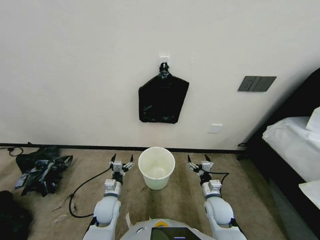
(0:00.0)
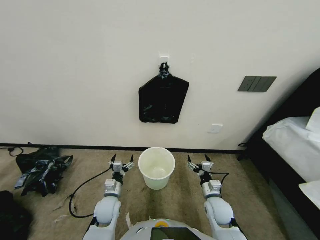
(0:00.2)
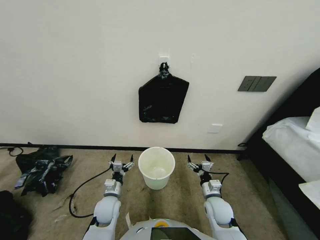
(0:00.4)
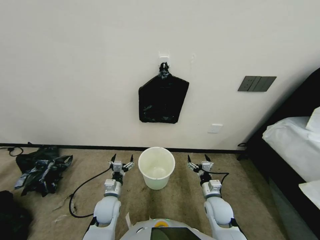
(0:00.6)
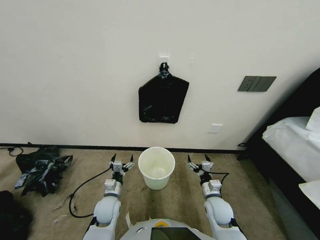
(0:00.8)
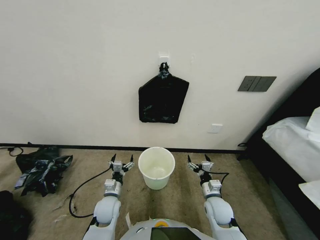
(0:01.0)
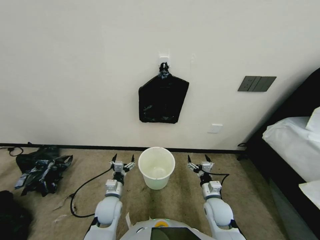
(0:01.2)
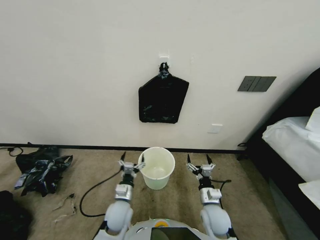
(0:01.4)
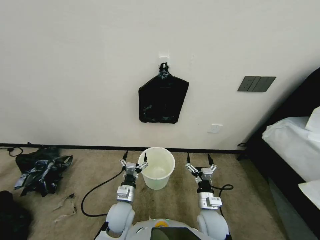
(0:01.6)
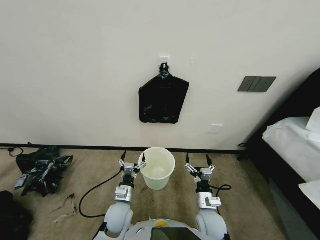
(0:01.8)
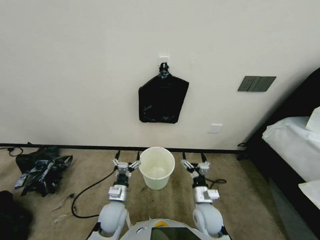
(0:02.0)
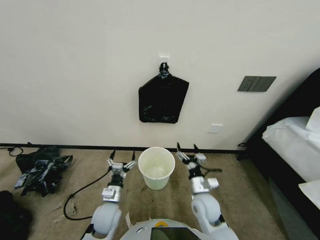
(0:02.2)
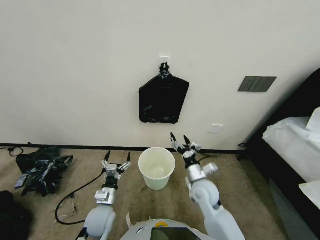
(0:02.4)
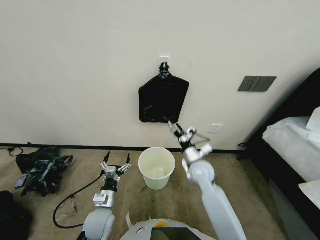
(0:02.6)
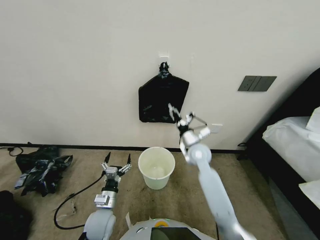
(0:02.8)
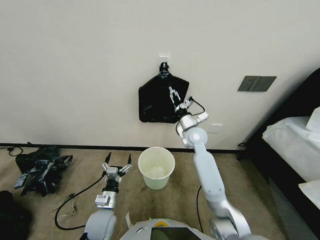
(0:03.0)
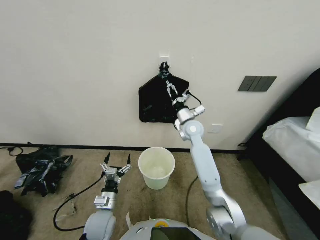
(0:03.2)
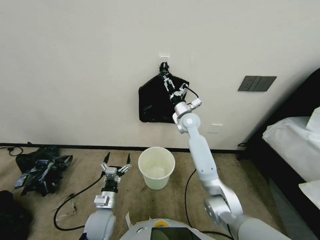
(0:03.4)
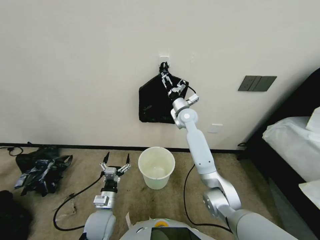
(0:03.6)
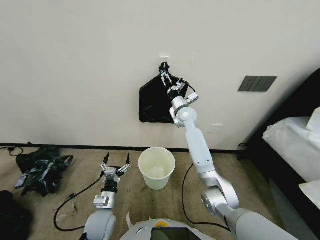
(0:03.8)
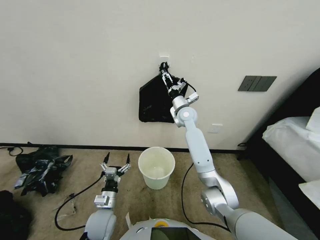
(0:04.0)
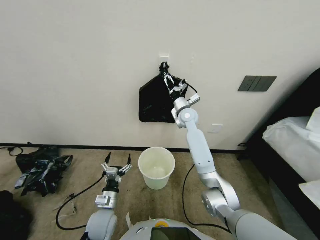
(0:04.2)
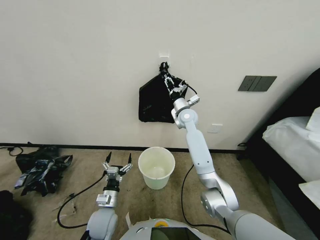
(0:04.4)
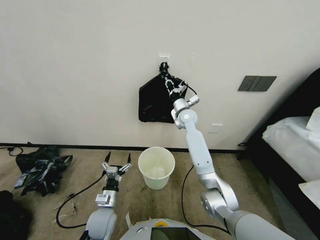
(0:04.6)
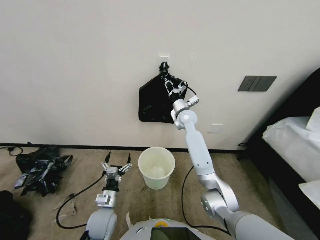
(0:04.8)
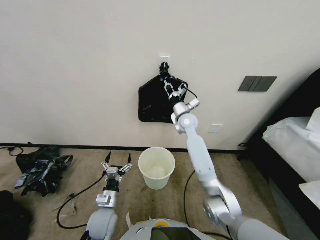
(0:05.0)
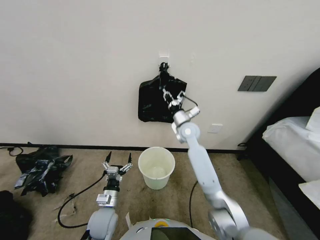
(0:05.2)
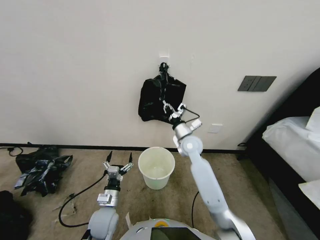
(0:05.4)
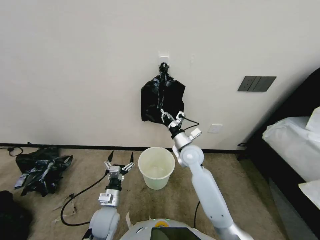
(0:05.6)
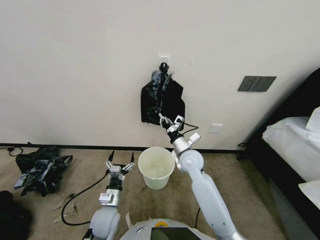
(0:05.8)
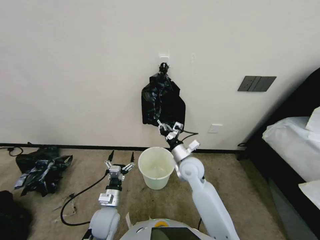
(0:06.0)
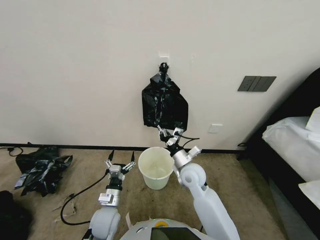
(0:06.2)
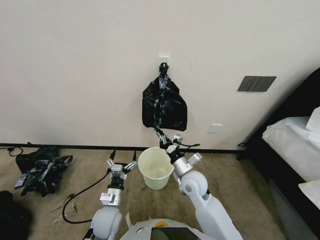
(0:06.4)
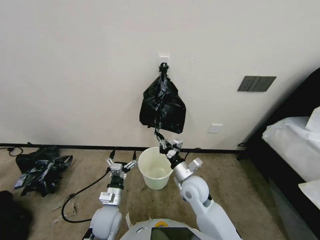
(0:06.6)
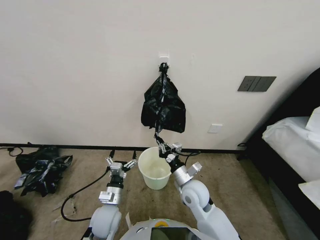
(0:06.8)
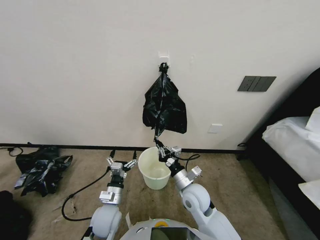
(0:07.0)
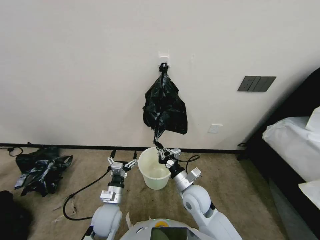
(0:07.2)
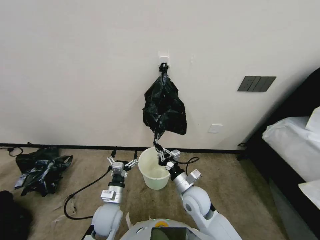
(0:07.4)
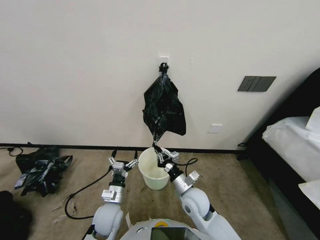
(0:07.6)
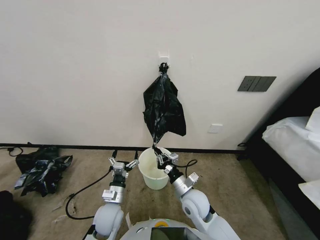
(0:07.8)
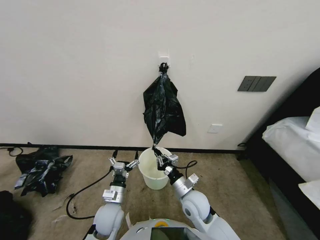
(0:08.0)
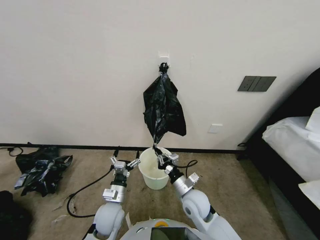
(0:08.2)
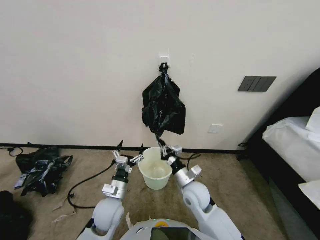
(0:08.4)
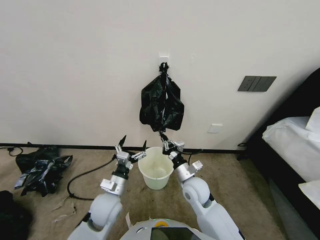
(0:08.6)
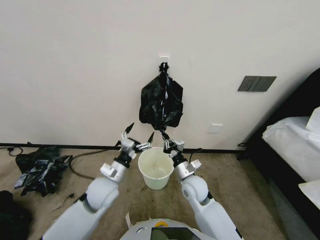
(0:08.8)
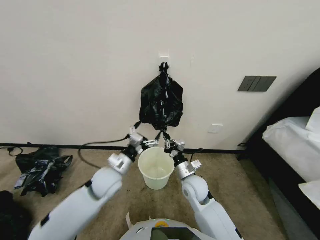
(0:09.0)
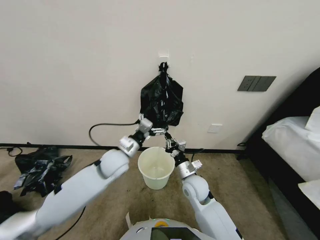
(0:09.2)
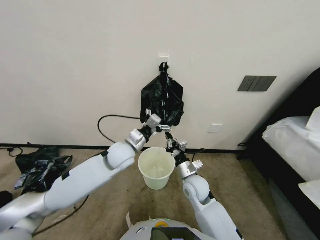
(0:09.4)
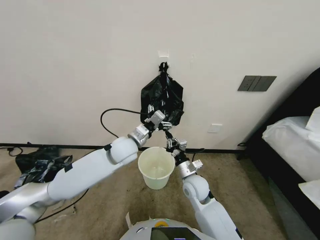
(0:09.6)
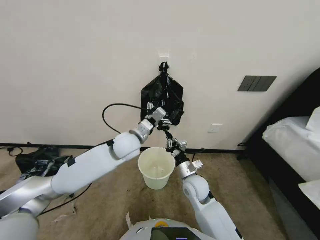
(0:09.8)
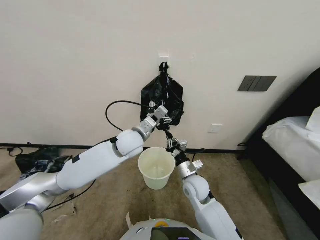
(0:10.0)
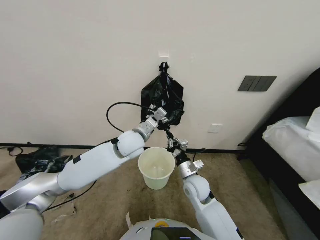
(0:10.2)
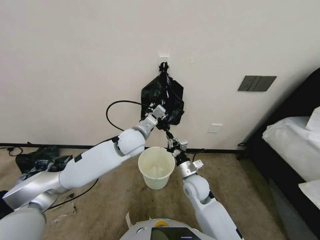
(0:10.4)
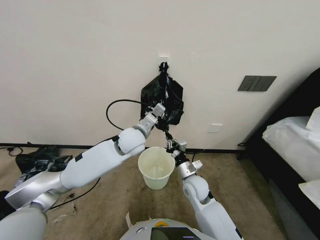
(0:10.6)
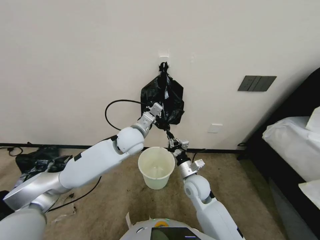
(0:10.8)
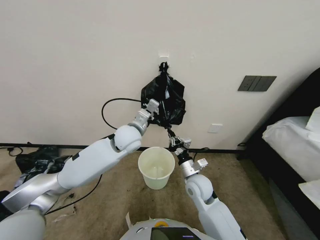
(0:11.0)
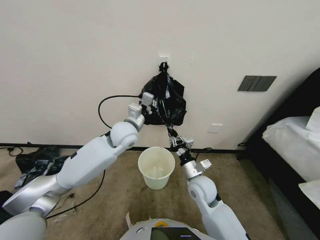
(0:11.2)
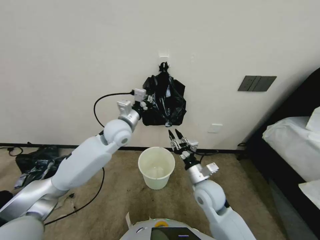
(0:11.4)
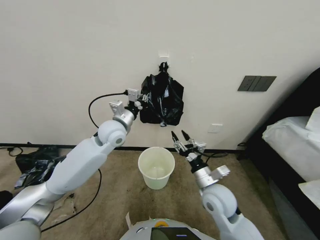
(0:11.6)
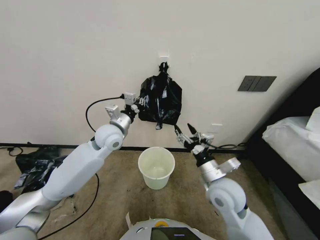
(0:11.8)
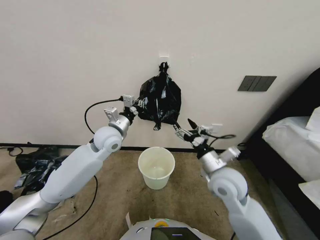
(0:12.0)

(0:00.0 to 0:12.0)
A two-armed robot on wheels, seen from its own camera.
Task of the whole recording: Place a trash bag onto the trash bin.
0:01.6 - 0:03.0: The right gripper goes about 30 cm forward and upward, while the left gripper goes approximately 5 cm to the left.
0:03.0 - 0:04.4: The right gripper goes approximately 10 cm forward and upward, and closes up.
0:04.4 - 0:06.0: The right gripper heads backward and downward, covering about 20 cm, and closes.
0:06.0 - 0:07.6: The right gripper heads backward and downward, covering approximately 15 cm.
0:07.6 - 0:09.0: The left gripper shifts some 15 cm upward and forward.
0:09.0 - 0:10.4: The left gripper moves forward, upward and to the right, about 15 cm, and closes up.
0:10.4 - 0:12.0: The left gripper is displaced to the left by roughly 10 cm, and closes its fingers. The right gripper goes some 10 cm upward and to the right, and opens its fingers.

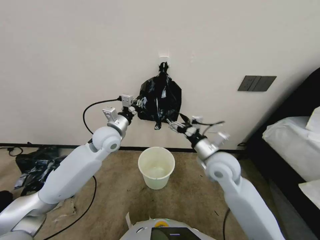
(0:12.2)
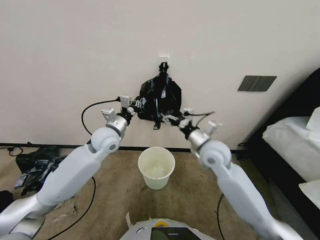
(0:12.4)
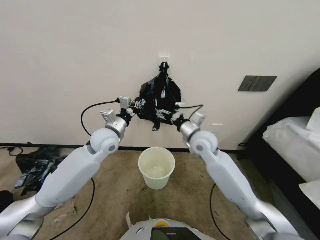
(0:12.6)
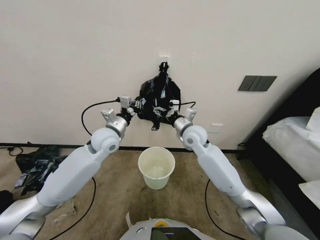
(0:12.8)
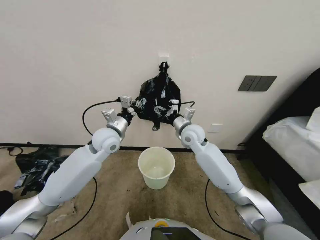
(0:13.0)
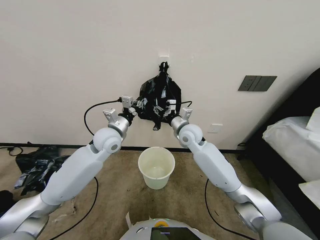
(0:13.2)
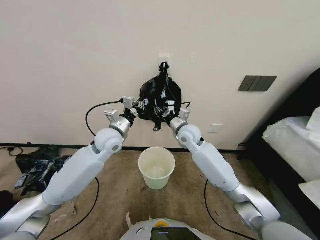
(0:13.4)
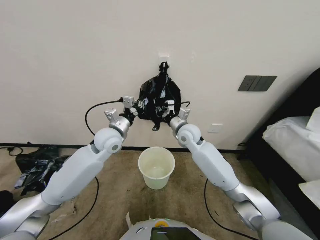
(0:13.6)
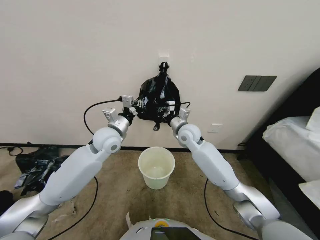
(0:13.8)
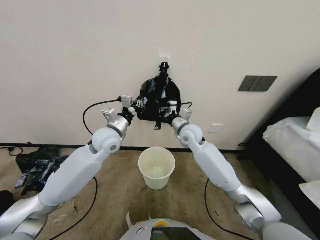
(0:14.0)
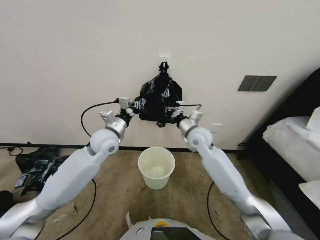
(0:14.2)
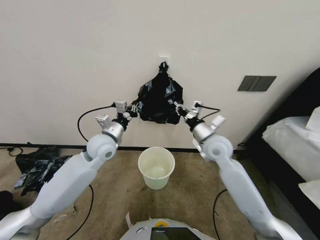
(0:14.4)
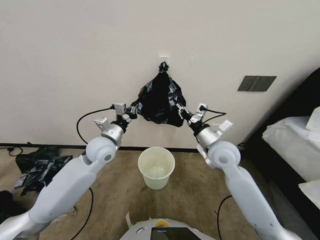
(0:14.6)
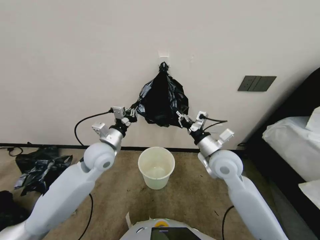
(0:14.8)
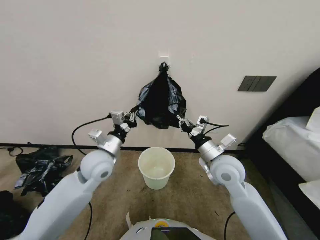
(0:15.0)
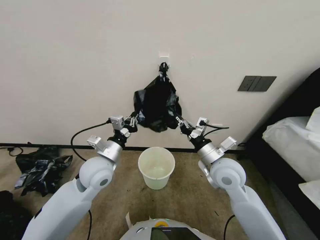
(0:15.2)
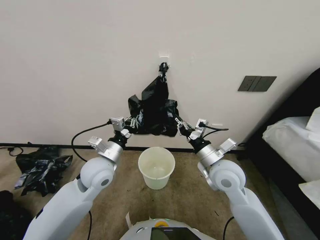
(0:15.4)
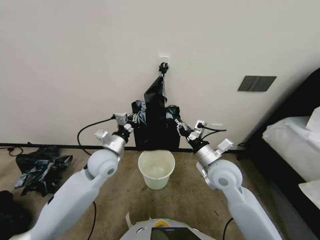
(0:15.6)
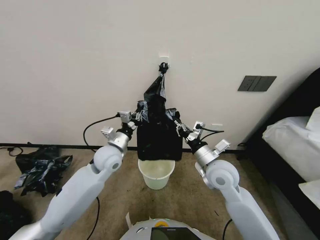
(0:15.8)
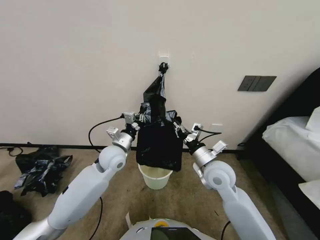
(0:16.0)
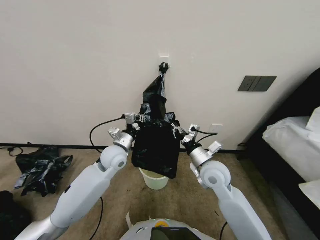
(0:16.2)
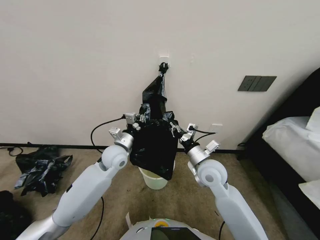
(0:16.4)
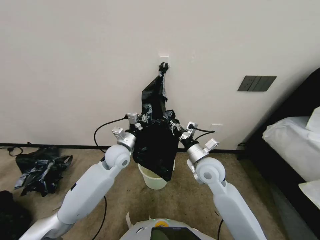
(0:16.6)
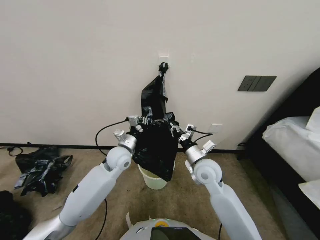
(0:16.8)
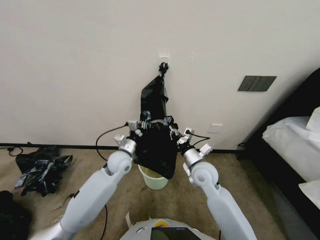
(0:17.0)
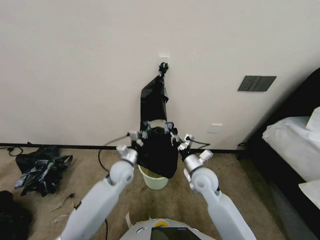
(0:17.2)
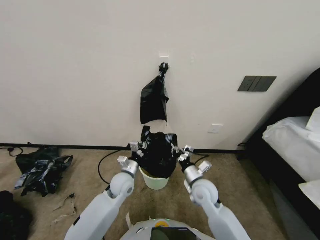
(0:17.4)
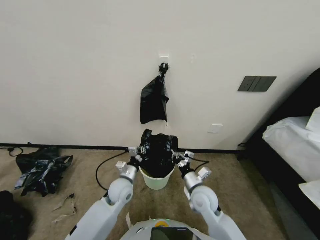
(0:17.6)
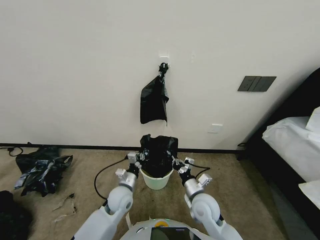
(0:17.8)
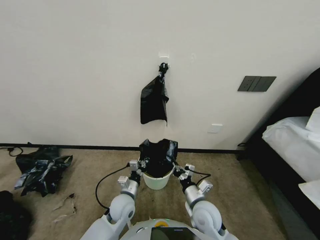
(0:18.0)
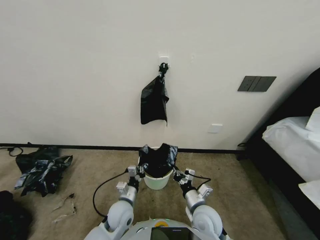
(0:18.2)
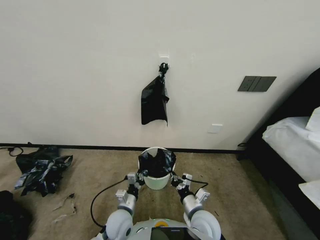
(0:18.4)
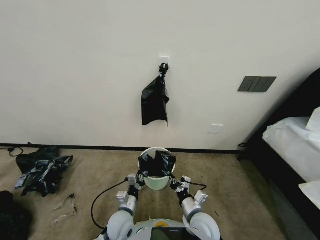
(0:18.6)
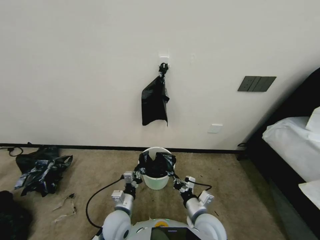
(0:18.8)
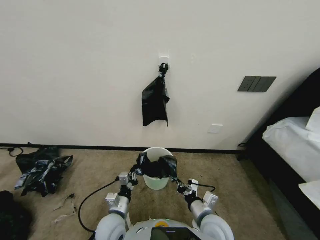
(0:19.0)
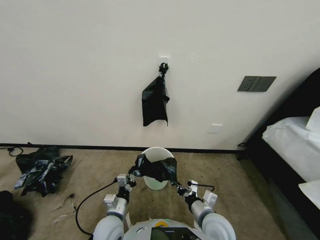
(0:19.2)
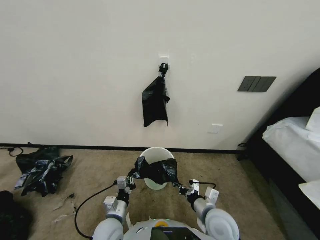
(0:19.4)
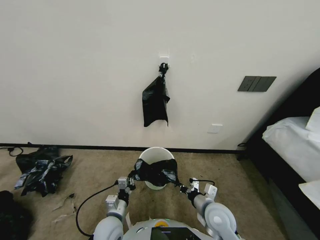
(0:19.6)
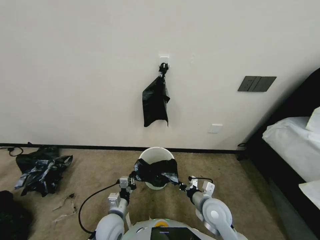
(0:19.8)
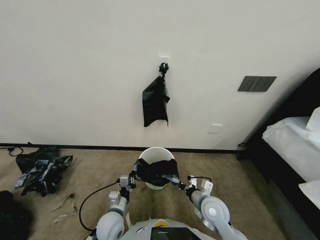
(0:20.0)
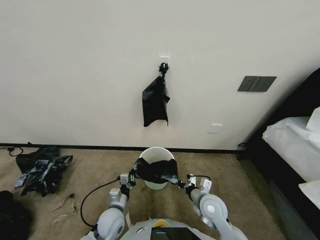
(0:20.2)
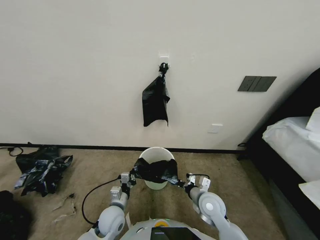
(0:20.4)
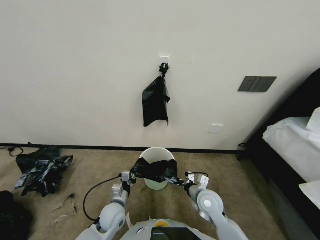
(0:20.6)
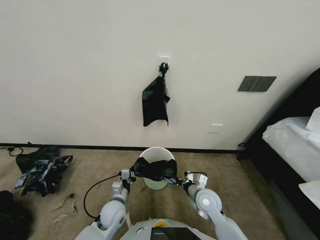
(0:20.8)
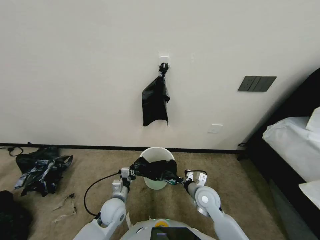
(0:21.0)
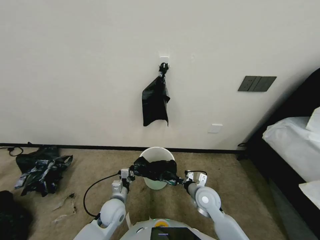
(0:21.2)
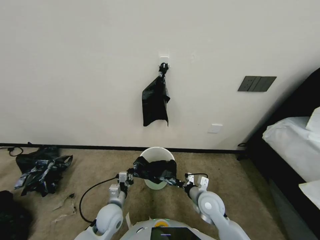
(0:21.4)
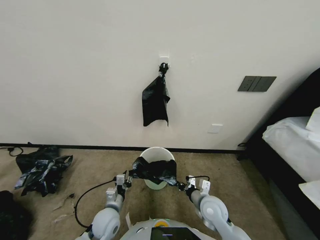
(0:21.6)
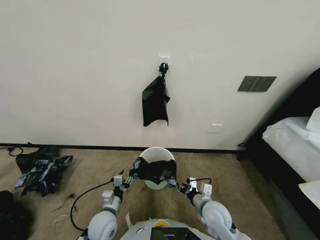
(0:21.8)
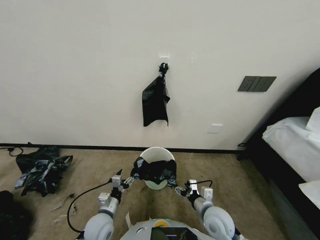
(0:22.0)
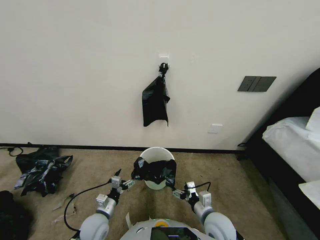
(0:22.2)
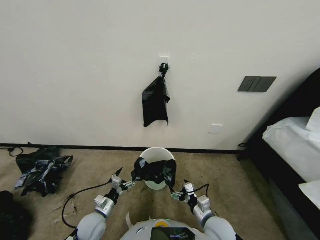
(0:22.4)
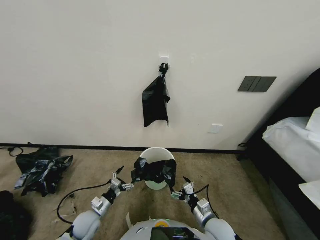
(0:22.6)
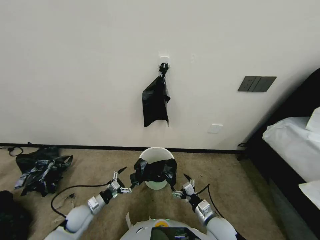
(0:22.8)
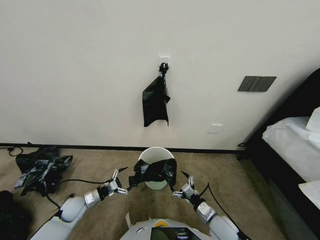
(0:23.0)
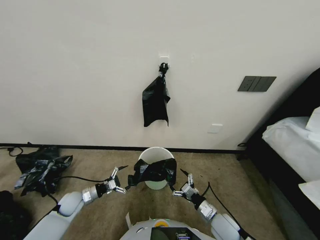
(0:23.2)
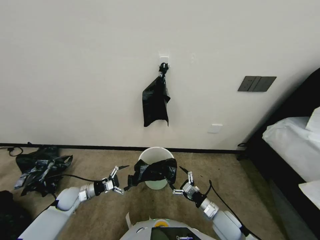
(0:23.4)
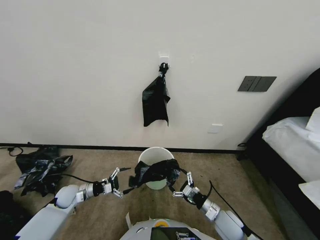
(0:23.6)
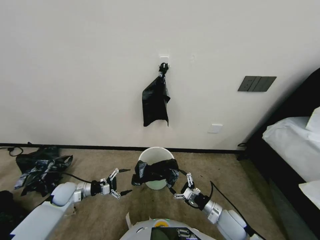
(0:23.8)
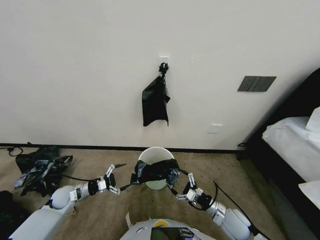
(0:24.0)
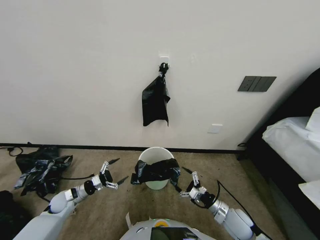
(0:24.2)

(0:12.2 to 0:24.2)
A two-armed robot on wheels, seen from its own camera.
Task of the whole recording: Place a trash bag onto the trash bin.
0:12.2 - 0:13.8: The right gripper heads forward and to the left, covering about 20 cm, and closes up.
0:13.8 - 0:15.2: The right gripper travels backward and to the right by about 20 cm. Meanwhile the left gripper is displaced backward by approximately 10 cm.
0:15.2 - 0:16.6: The left gripper heads forward, covering about 5 cm. The right gripper ends up some 5 cm from where it was.
0:16.6 - 0:18.2: The grippers both shift downward and backward by roughly 20 cm.
0:18.2 - 0:19.8: The left gripper shifts roughly 5 cm backward.
0:19.8 - 0:21.2: The grippers both shift forward by approximately 5 cm.
0:21.2 - 0:22.6: The right gripper goes some 10 cm backward, and opens up. The left gripper moves to the left, about 10 cm, and opens up.
0:22.6 - 0:24.2: The left gripper goes some 15 cm to the left and forward; the right gripper is displaced to the right by about 10 cm.
